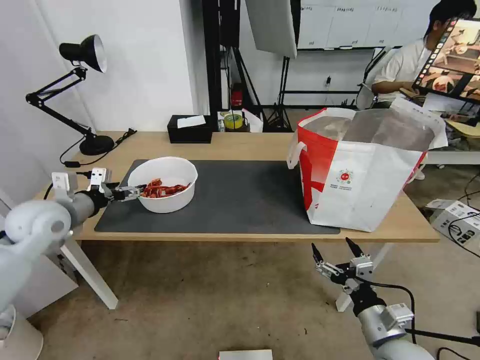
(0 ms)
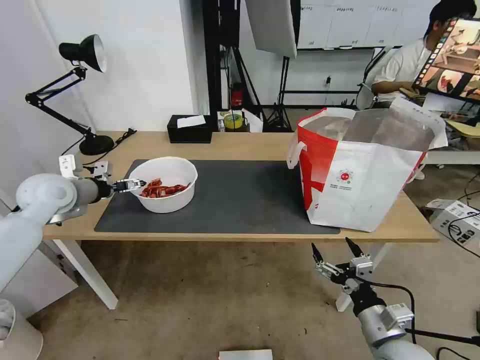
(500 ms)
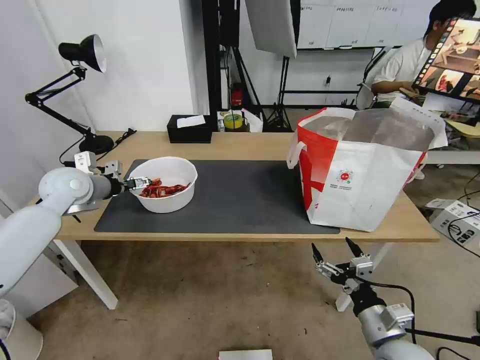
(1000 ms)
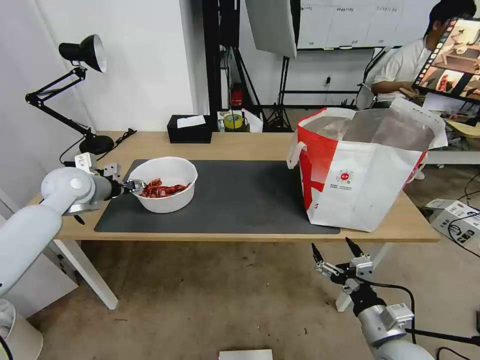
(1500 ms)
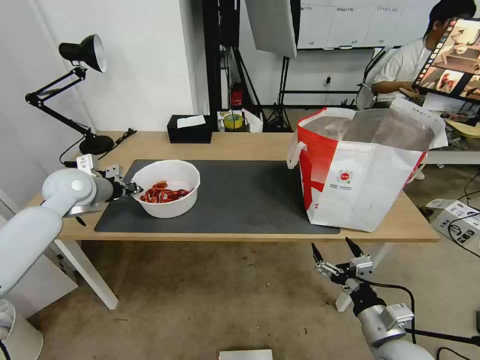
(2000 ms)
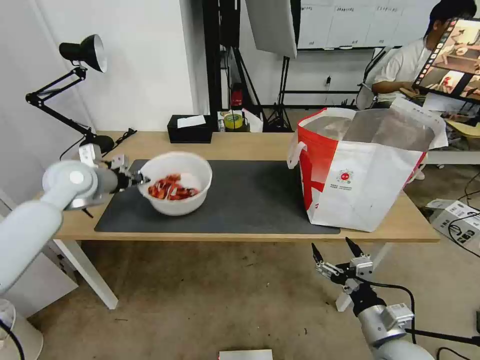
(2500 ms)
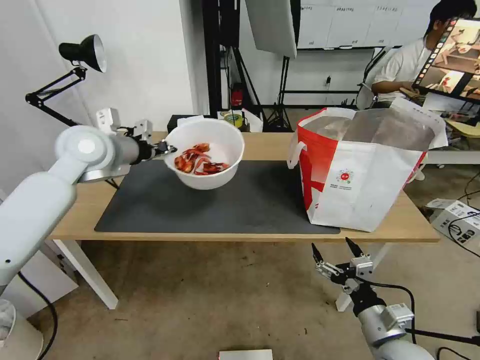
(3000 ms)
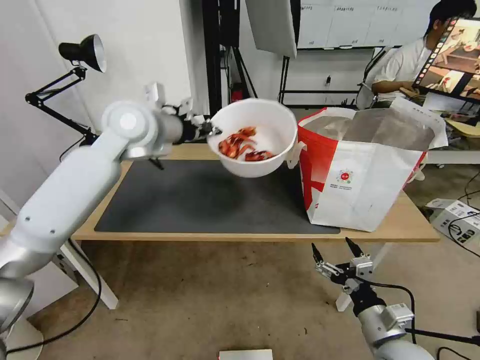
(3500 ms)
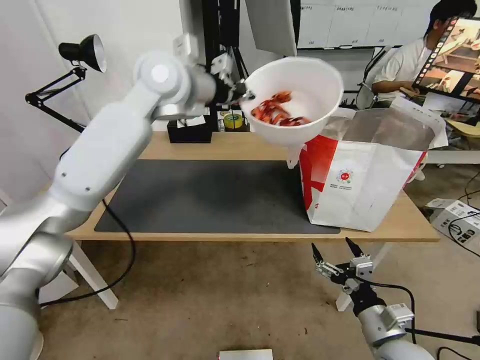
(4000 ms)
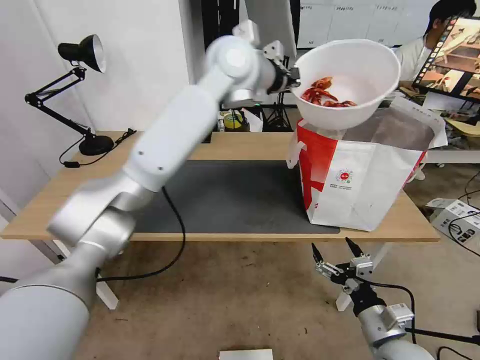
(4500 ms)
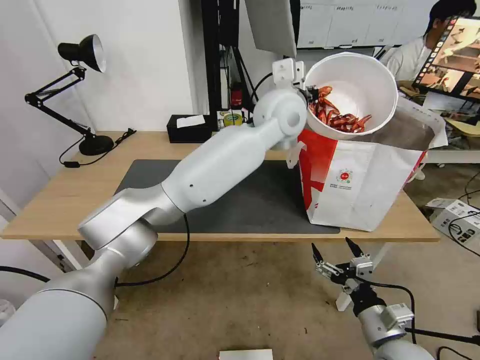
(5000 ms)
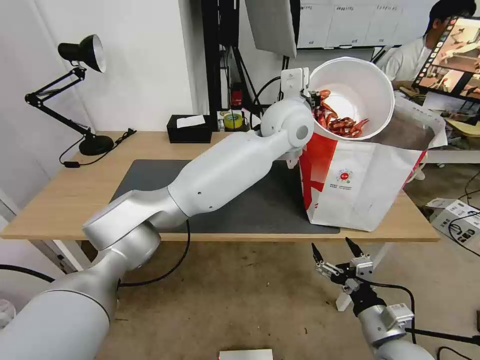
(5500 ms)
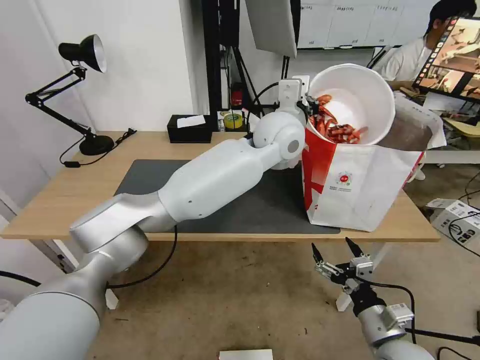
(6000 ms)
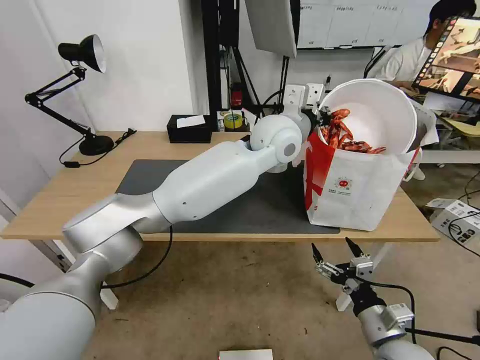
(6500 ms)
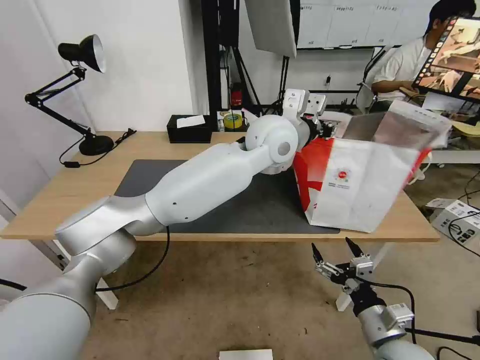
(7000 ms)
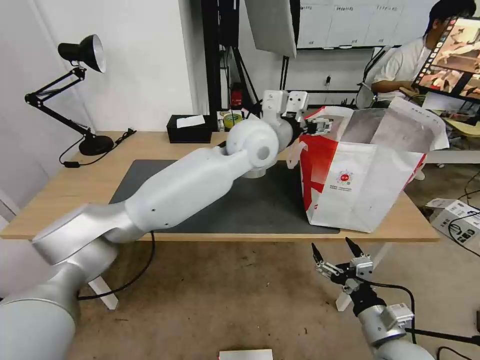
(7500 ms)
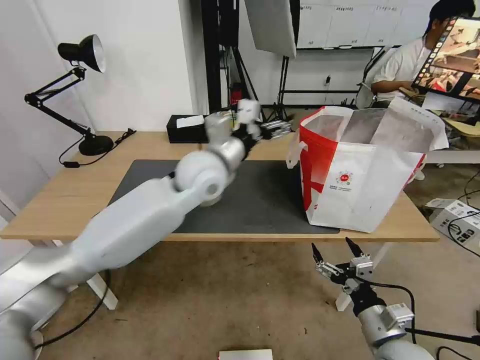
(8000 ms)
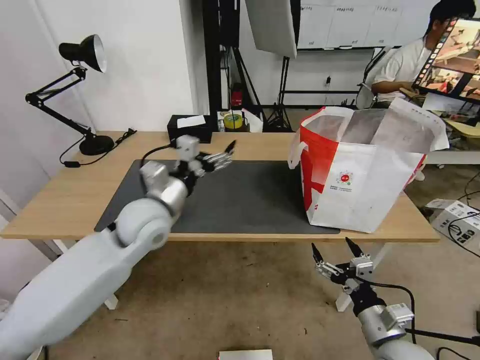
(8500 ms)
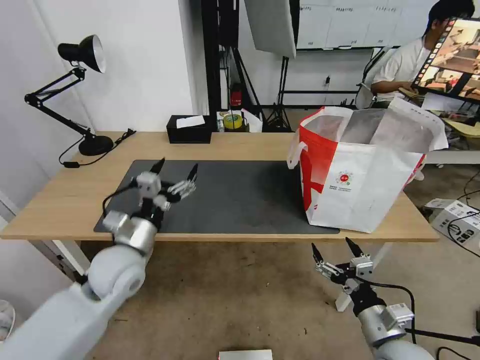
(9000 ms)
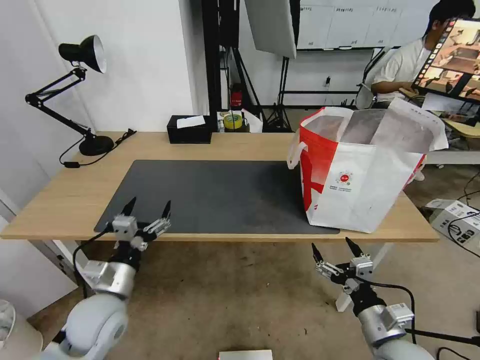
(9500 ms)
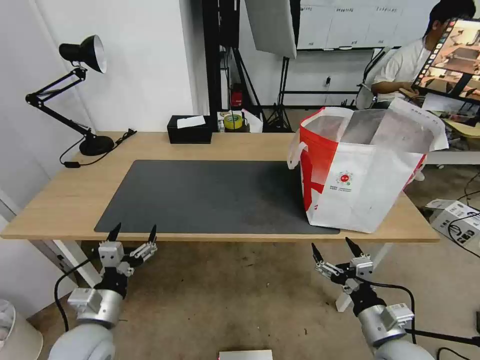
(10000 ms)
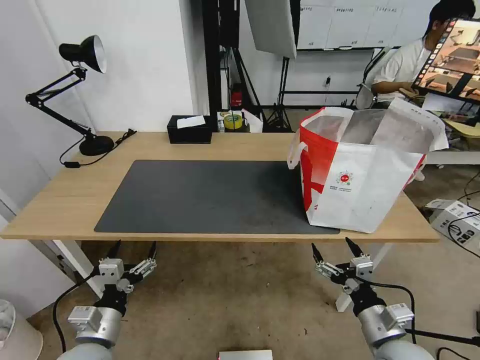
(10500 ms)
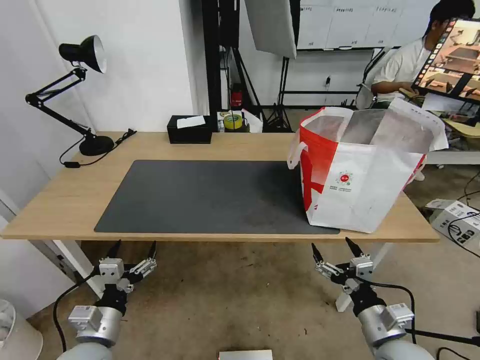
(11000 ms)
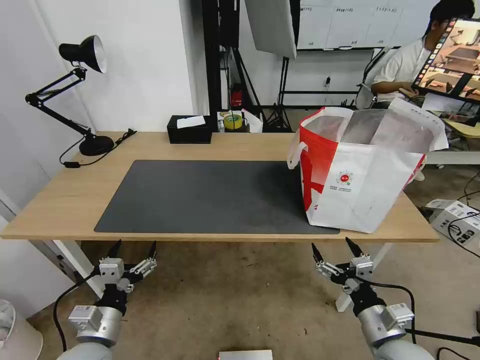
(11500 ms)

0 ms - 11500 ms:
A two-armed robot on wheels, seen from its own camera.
Task of the whole recording: Pick up the trash from the table and place it into the takeout bag.
0 ms - 2000 ms: The left gripper shifts some 10 cm forward, and closes up.
2000 ms - 4000 ms: The left gripper heads to the right and upward, covering about 30 cm.
4000 ms - 6000 ms: The left gripper travels to the right and downward by approximately 25 cm.
6000 ms - 7500 ms: The left gripper moves to the left, roughly 5 cm, and opens its fingers.
7500 ms - 9500 ms: The left gripper goes roughly 40 cm to the left, downward and backward.
9500 ms - 11500 ms: The left gripper heads backward, covering about 10 cm.

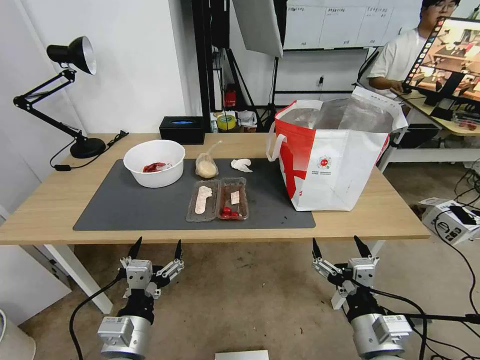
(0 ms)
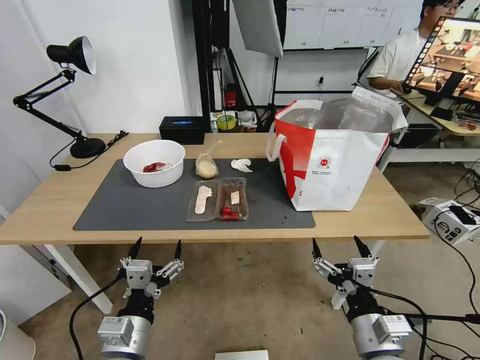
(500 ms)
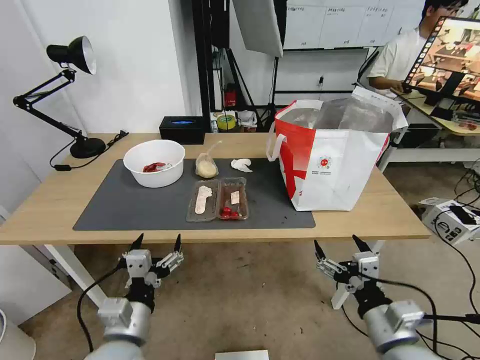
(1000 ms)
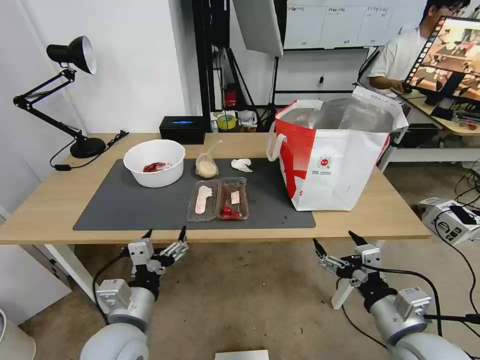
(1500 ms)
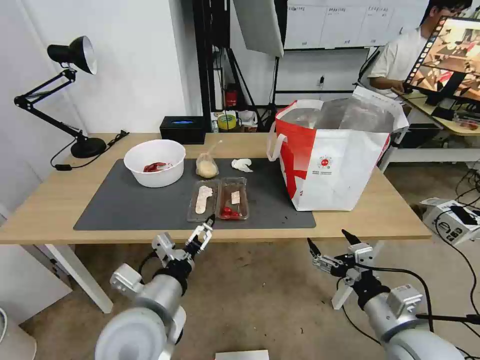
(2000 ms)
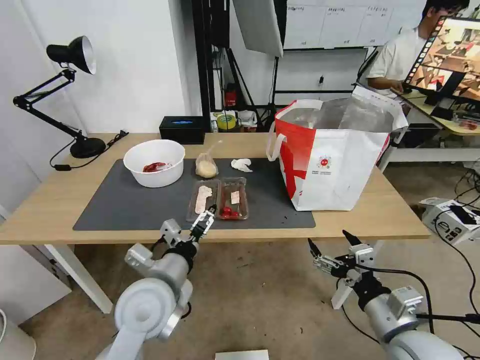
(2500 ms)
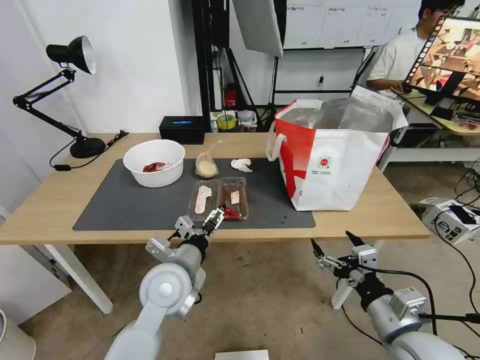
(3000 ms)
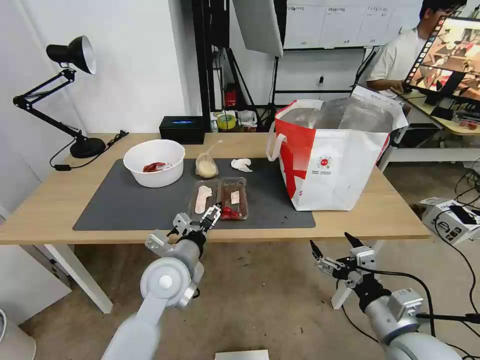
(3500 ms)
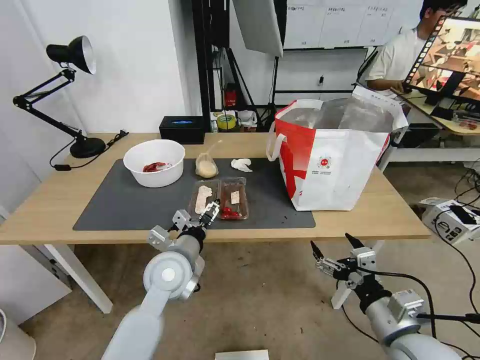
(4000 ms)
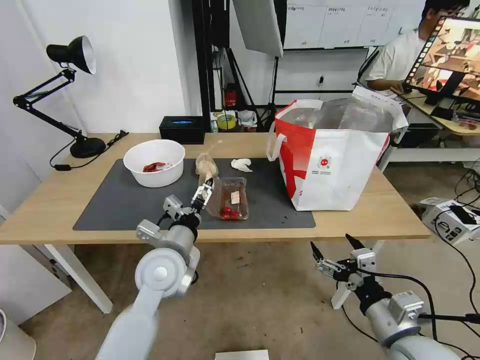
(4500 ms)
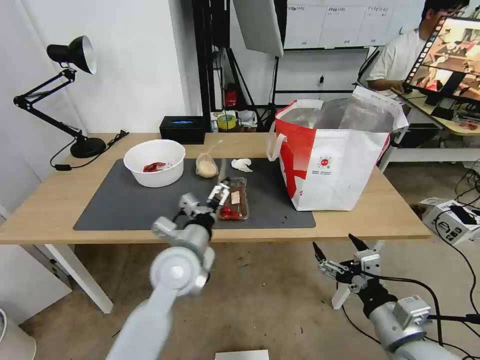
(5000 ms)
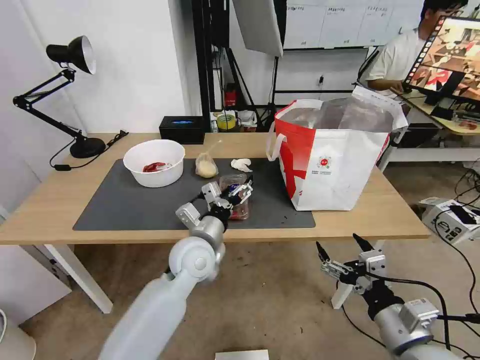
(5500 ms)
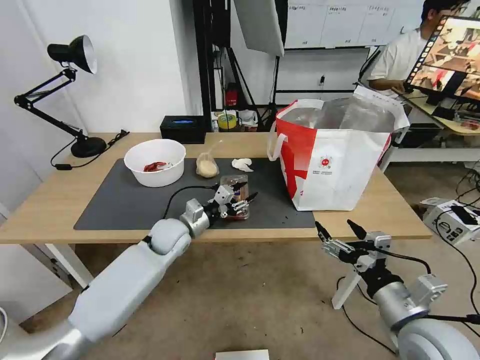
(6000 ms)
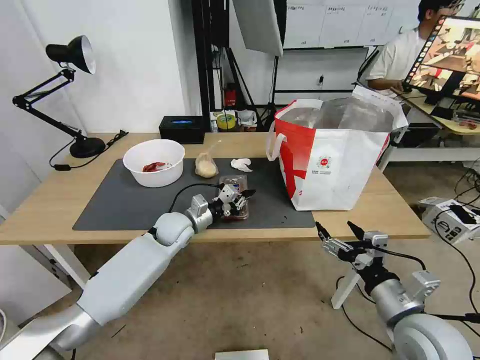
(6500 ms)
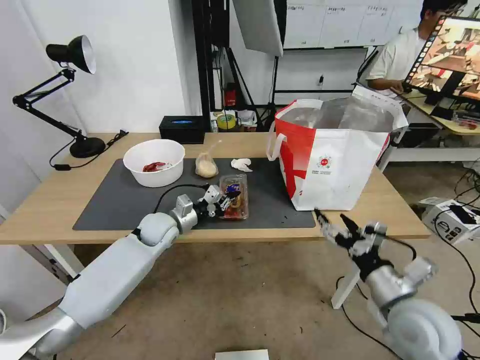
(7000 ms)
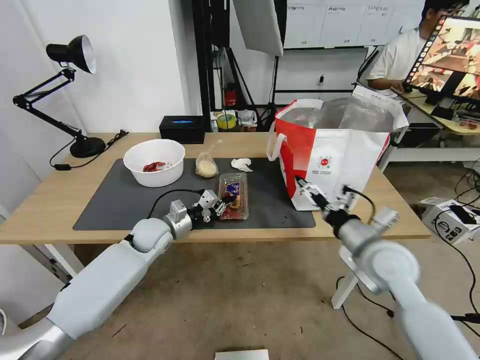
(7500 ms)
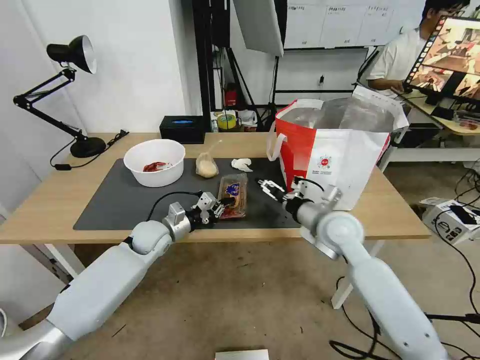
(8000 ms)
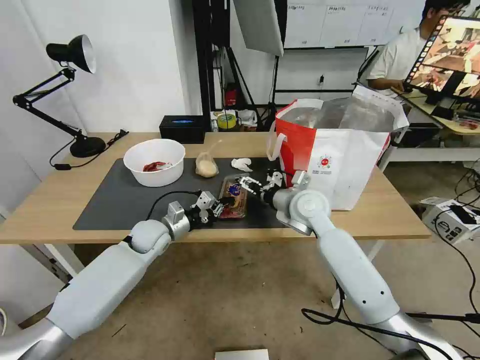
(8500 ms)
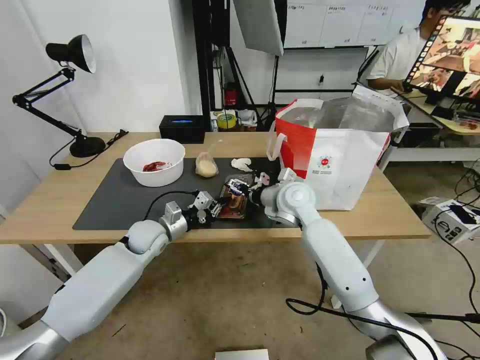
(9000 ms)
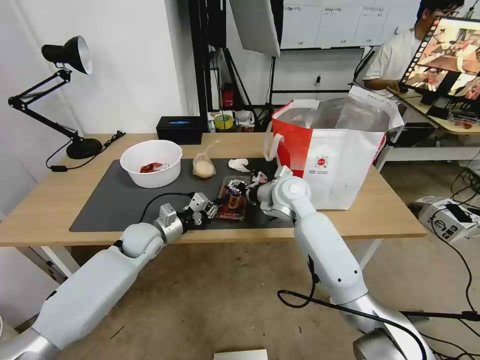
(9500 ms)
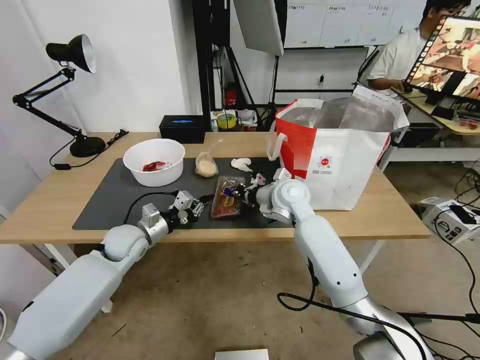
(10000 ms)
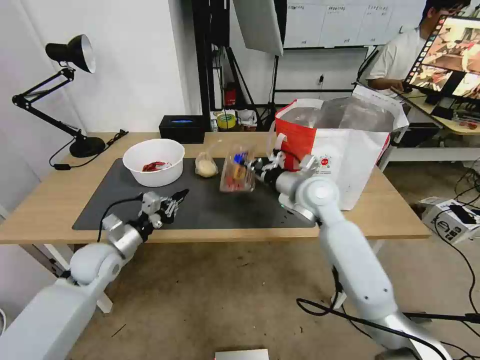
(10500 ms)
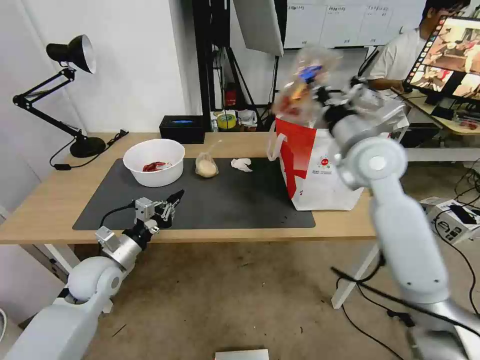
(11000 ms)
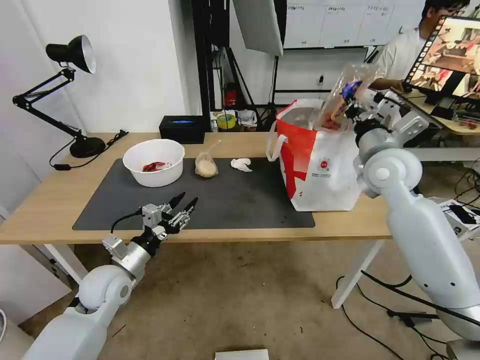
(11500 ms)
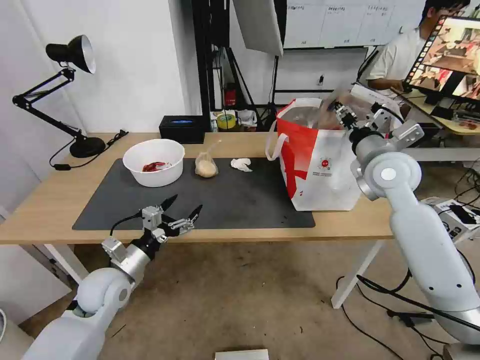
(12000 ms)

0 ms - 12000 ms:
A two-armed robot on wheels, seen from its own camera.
Task of the whole recording: Pick up the trash from the table and place it into the takeout bag.
2000 ms - 4000 ms: The left gripper is displaced forward by roughly 10 cm.
4000 ms - 6000 ms: The left gripper travels forward by some 10 cm, and closes.
6000 ms - 8000 ms: The right gripper heads forward and to the left, covering approximately 25 cm, while the left gripper is displaced to the left by roughly 5 cm, and closes its fingers.
8000 ms - 10000 ms: The right gripper goes roughly 15 cm forward and to the left, and closes its fingers, while the left gripper moves to the left, about 5 cm.
10000 ms - 12000 ms: The left gripper heads backward, covering about 10 cm, and opens up; the right gripper is displaced to the right and upward by roughly 20 cm, and opens its fingers.

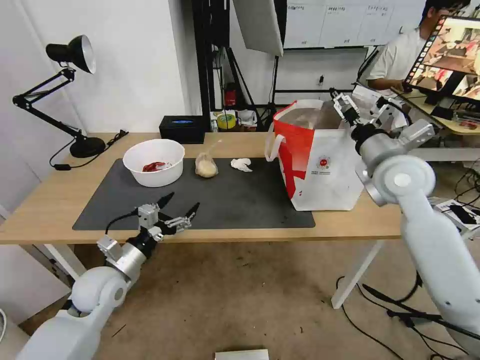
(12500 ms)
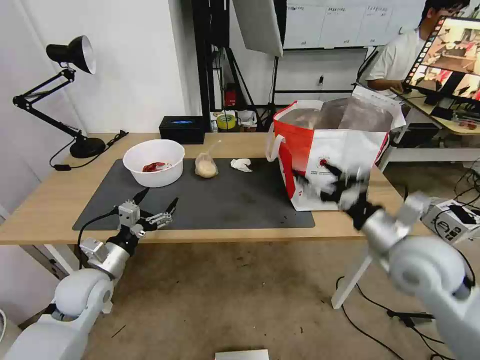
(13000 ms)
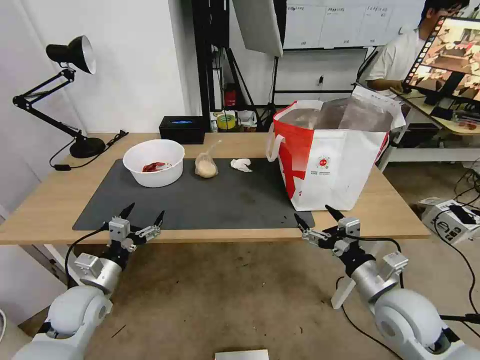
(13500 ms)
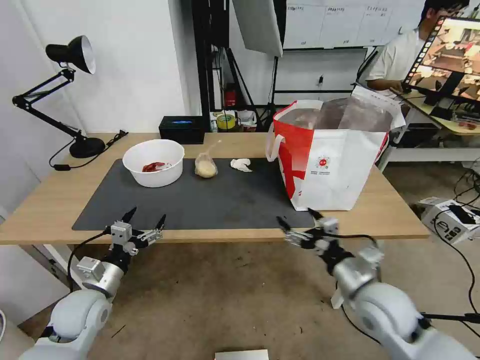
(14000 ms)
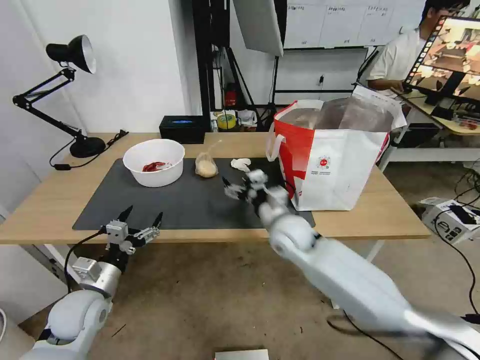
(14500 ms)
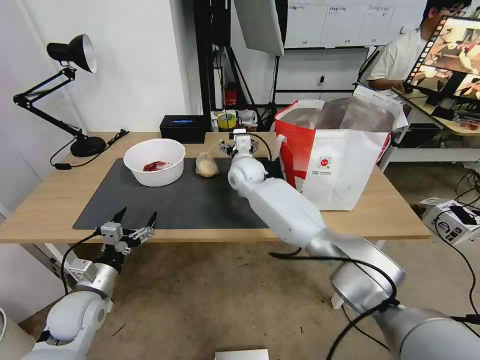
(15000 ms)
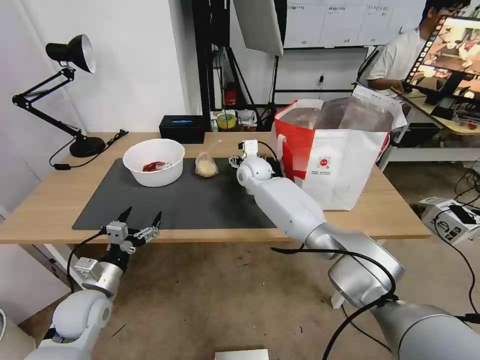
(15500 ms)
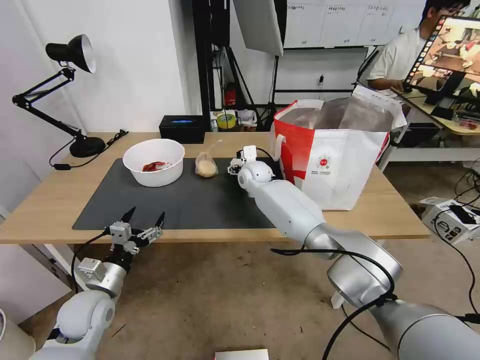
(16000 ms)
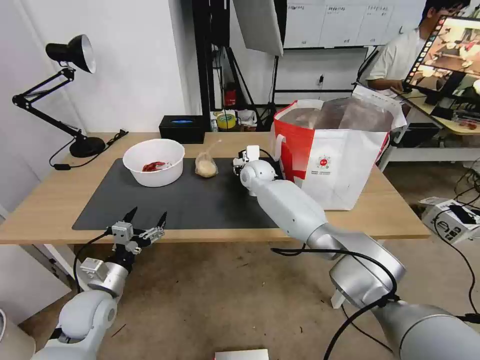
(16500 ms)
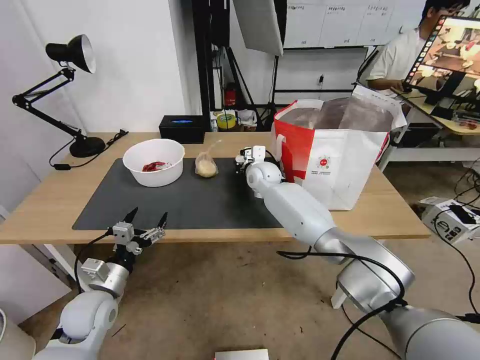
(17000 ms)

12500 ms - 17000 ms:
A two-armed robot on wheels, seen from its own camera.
Task of the whole recording: Pick up the trash from the table and place it into the takeout bag.
12500 ms - 14500 ms: The left gripper shifts by about 5 cm, while the right gripper travels to the left and downward by some 25 cm.
14500 ms - 17000 ms: The right gripper heads forward, covering some 20 cm, and closes.
